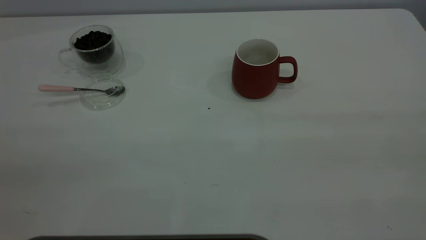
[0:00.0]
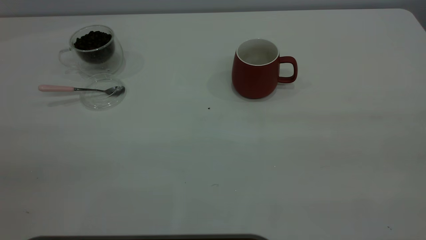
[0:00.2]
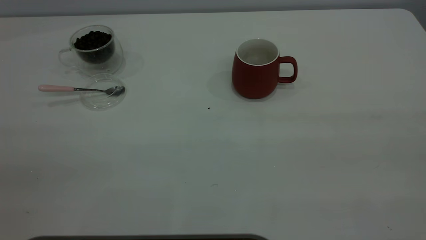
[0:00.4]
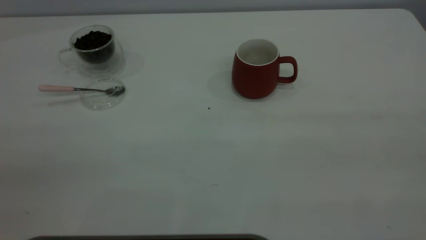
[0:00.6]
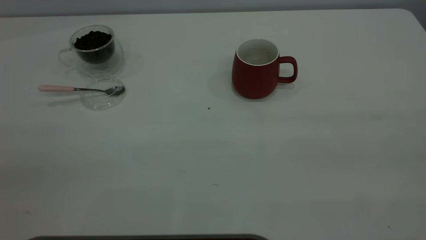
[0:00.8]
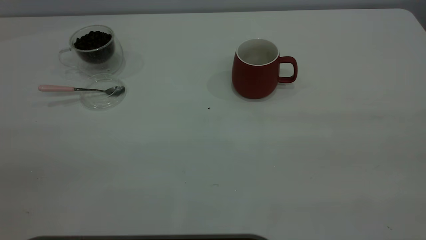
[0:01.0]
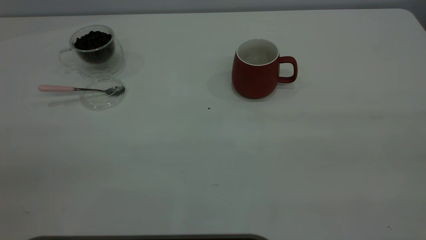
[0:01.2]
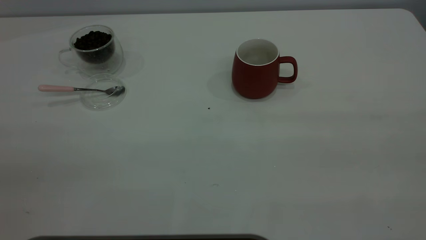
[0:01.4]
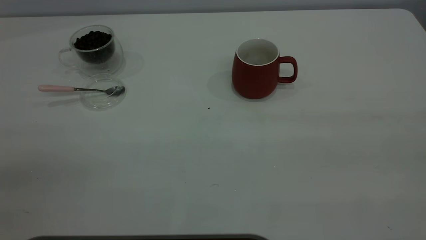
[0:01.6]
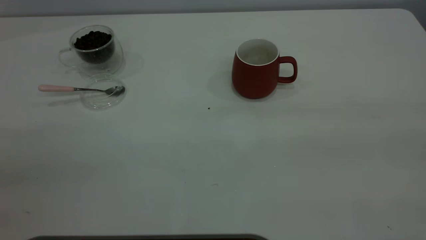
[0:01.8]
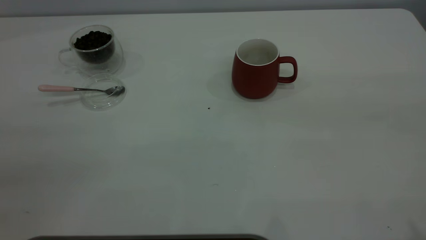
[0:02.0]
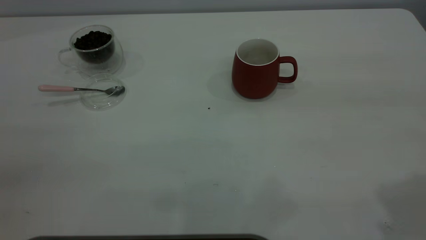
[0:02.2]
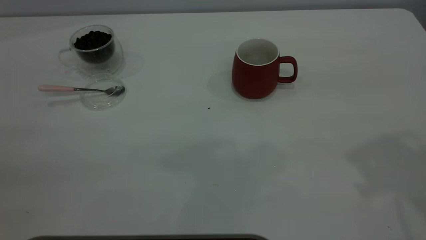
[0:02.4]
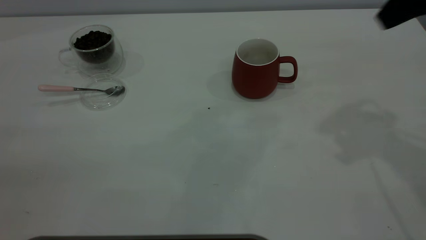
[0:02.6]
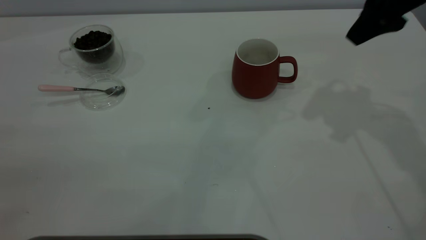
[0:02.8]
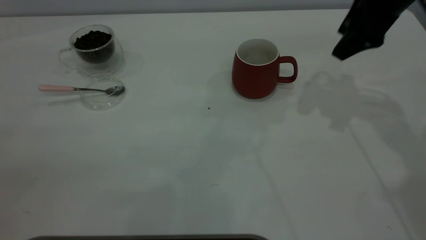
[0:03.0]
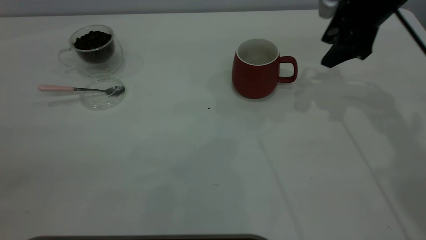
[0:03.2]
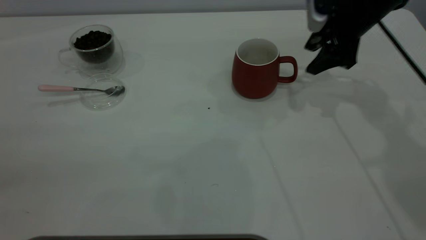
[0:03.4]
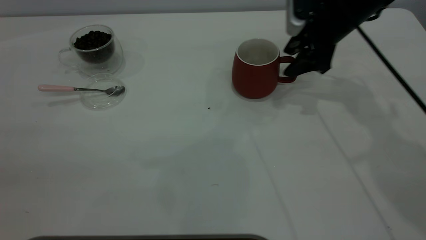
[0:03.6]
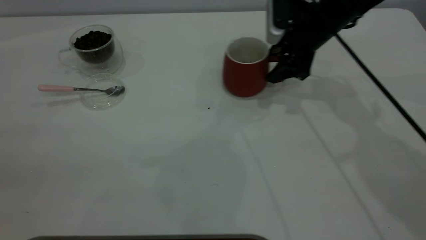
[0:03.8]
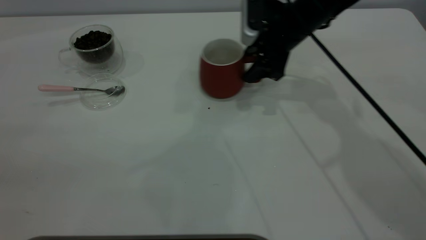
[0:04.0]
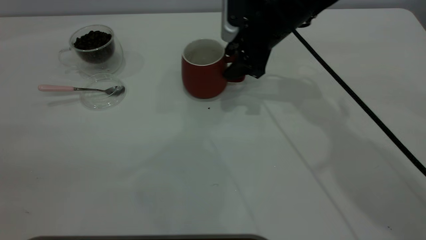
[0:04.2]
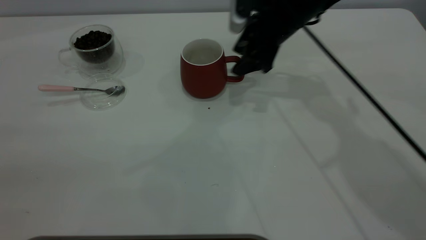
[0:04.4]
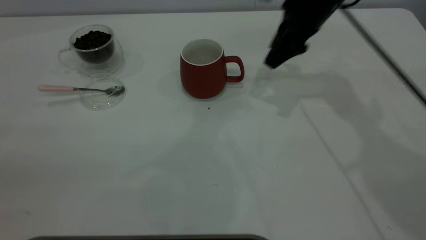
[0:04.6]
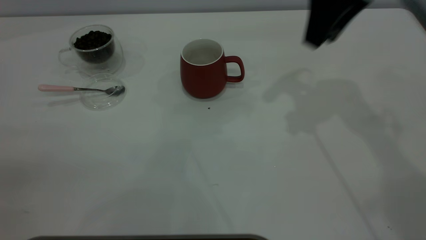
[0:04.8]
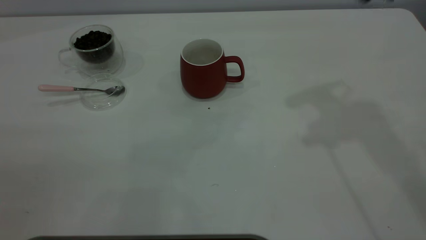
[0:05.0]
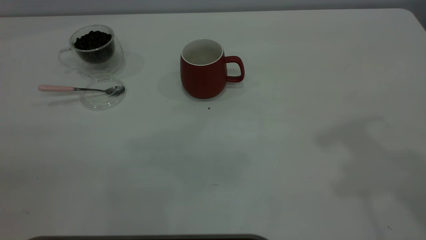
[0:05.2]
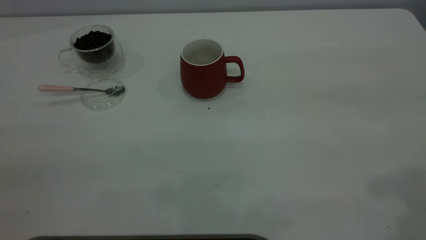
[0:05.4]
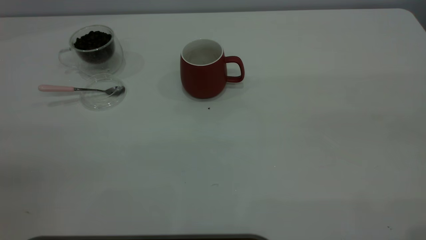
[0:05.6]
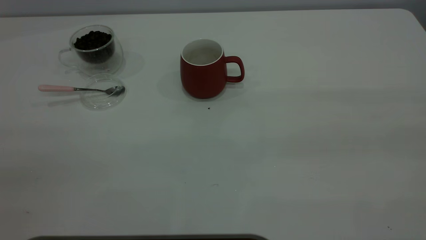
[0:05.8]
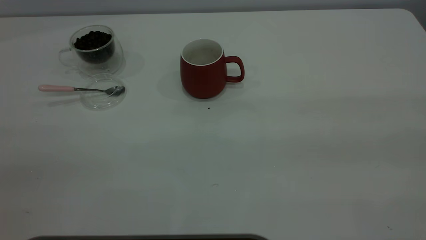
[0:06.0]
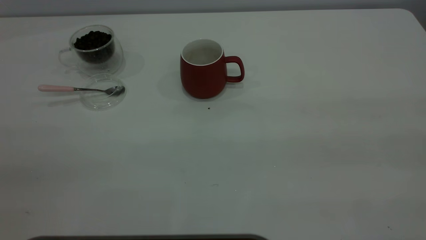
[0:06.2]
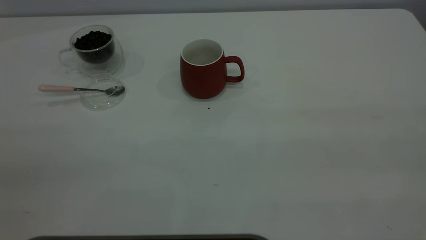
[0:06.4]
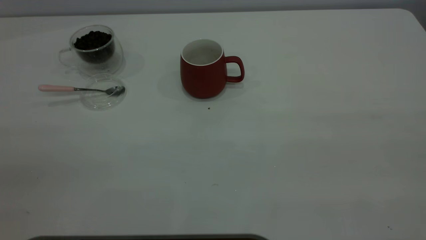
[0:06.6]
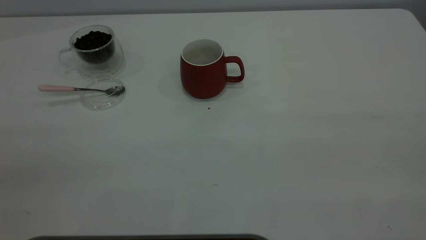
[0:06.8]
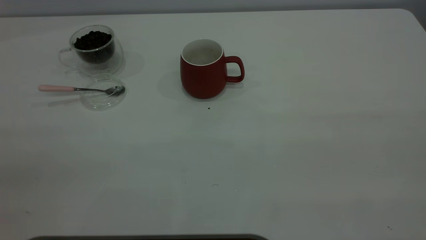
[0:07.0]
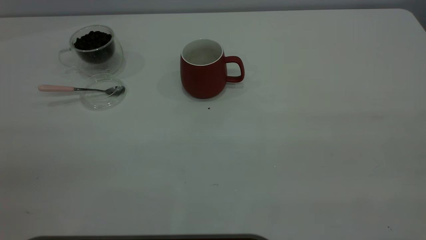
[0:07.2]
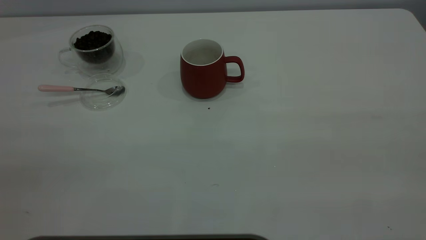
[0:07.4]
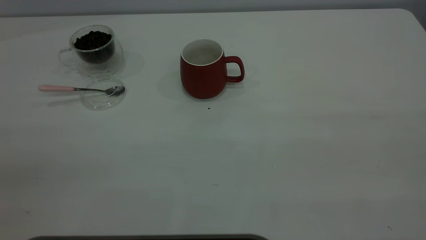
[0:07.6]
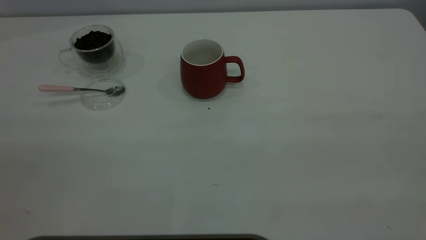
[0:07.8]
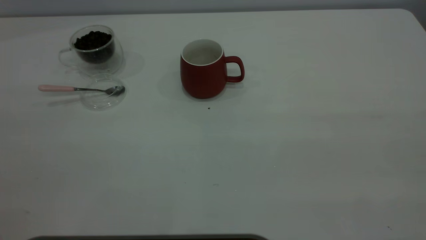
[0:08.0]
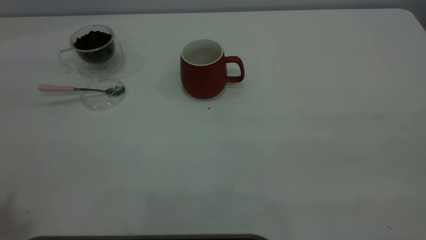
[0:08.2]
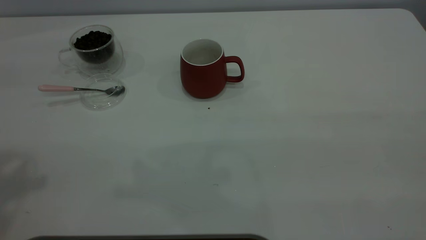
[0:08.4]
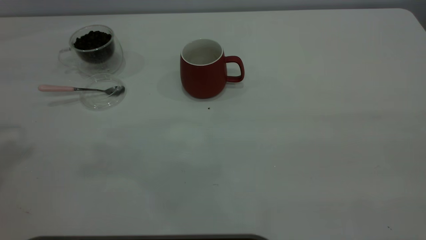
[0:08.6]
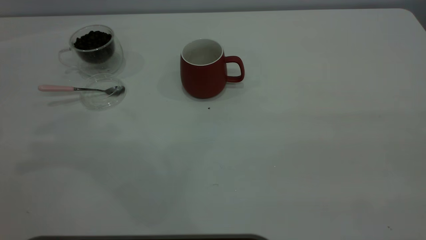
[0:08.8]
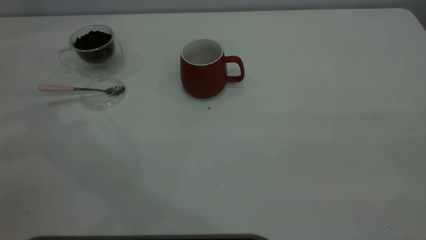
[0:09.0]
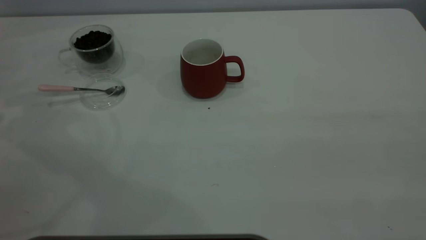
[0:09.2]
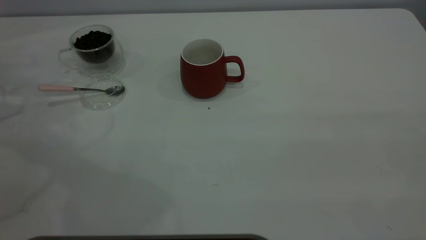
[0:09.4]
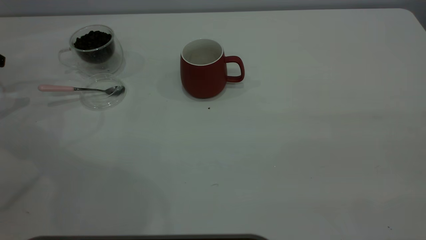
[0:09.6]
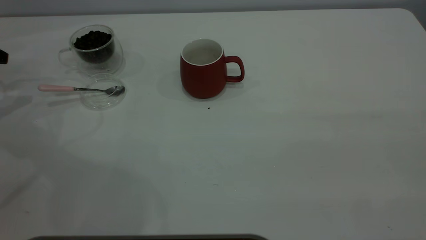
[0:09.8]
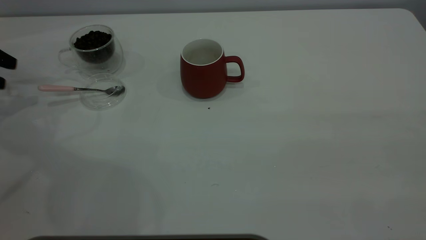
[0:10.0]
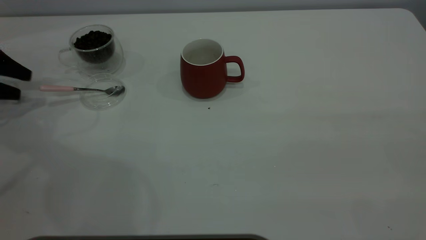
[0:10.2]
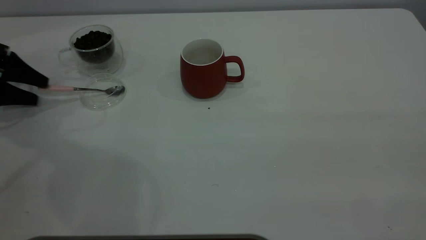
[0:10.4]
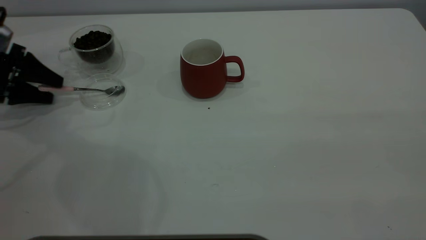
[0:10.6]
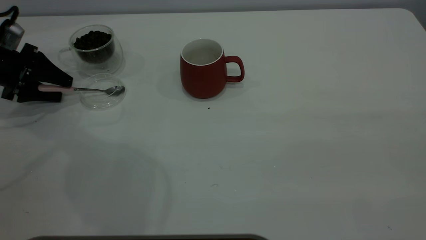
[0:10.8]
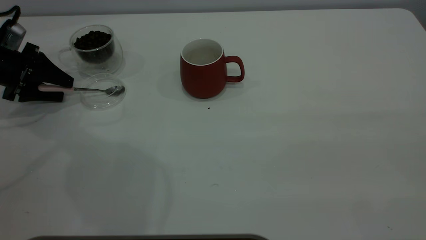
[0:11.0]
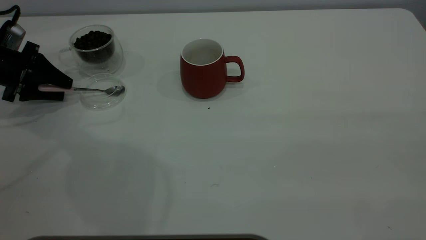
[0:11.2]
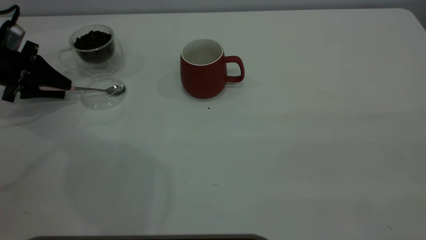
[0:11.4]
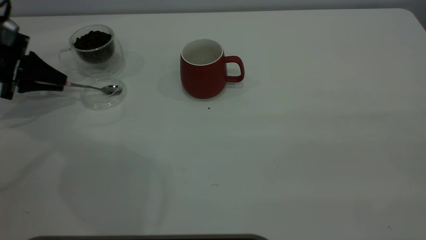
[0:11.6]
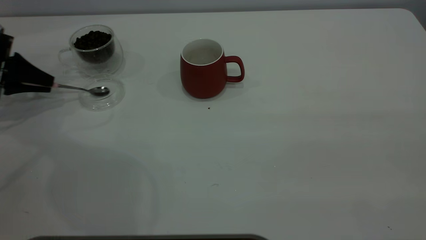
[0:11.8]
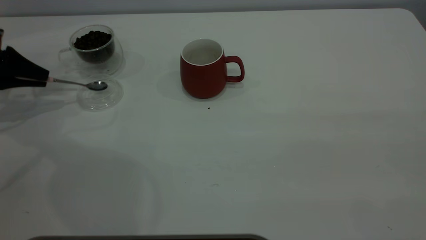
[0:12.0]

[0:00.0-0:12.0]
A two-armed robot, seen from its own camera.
Task of the whole recording: the right gripper place the red cup in the center of the table, the left gripper take the pink spoon from the cup lid and scoop out the coffee beans from the coffee cup and put them into the red cup, the left gripper put the spoon back into the cup lid.
Step, 0:00.0 to 0:04.8: Move the cup to the center of view.
0:00.0 to 0:01.6: Neither gripper changes place.
0:01.6 to 0:03.0: The right gripper is displaced forward and downward by approximately 40 cm.
0:03.0 to 0:04.4: The right gripper heads to the left, downward and forward, covering approximately 15 cm.
0:04.4 to 0:06.0: The right gripper goes roughly 50 cm backward and upward, and closes, then opens again.
0:09.0 to 0:10.4: The left gripper heads downward and forward, covering approximately 15 cm, and opens up.
0:10.4 to 0:12.0: The left gripper closes its fingers.

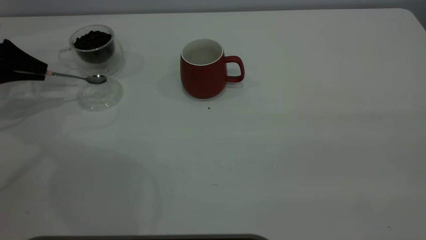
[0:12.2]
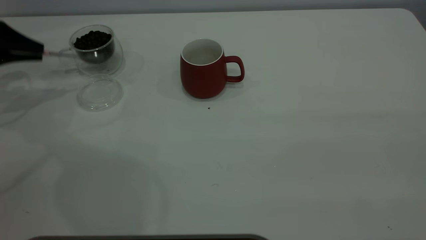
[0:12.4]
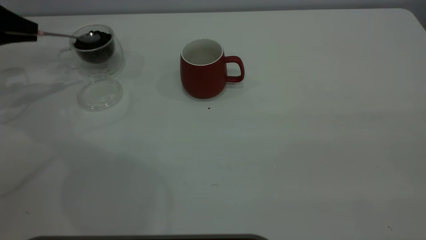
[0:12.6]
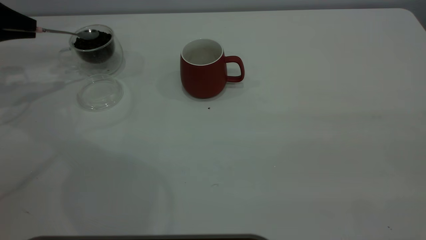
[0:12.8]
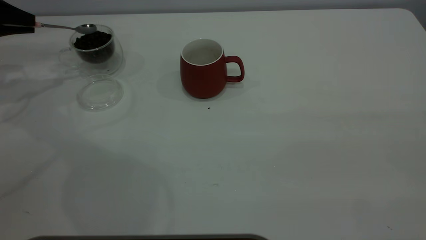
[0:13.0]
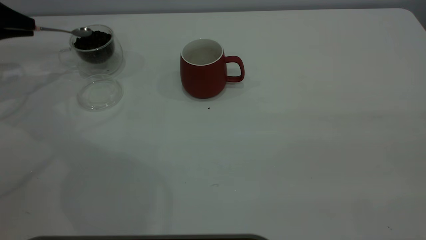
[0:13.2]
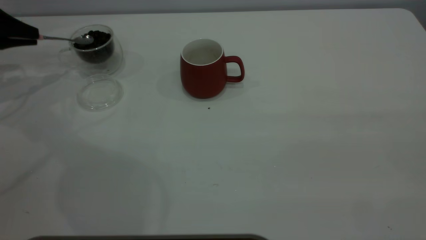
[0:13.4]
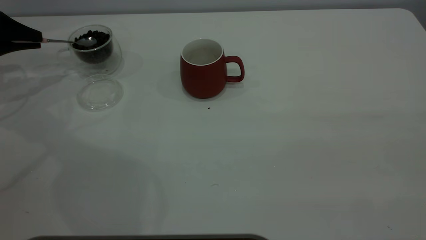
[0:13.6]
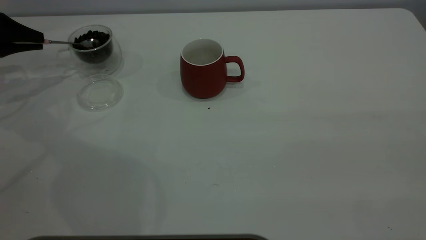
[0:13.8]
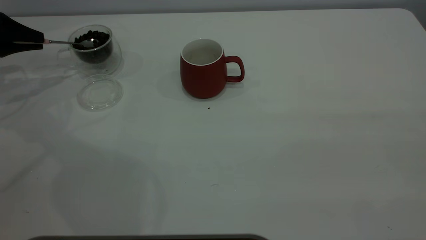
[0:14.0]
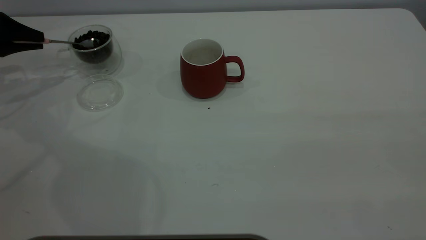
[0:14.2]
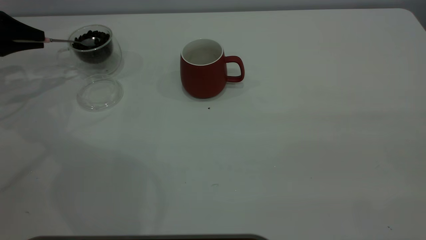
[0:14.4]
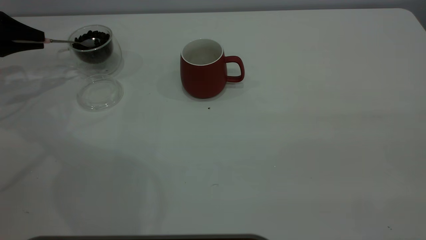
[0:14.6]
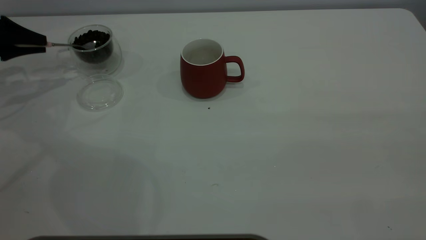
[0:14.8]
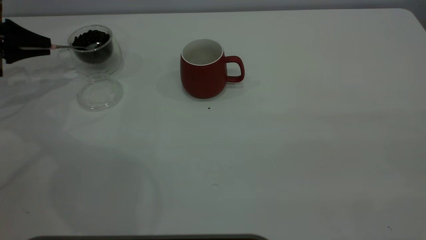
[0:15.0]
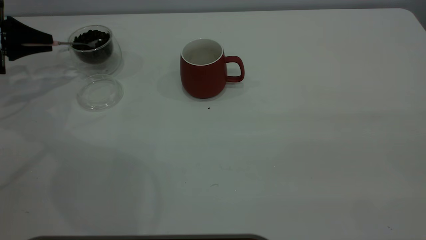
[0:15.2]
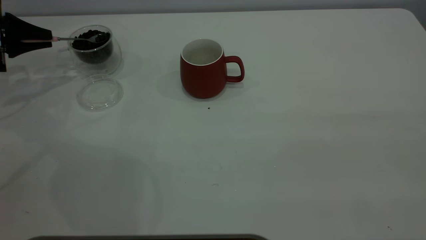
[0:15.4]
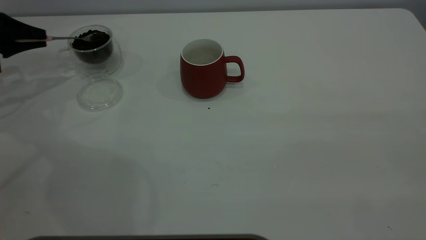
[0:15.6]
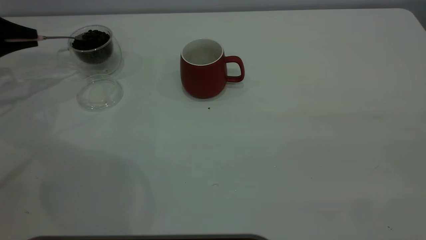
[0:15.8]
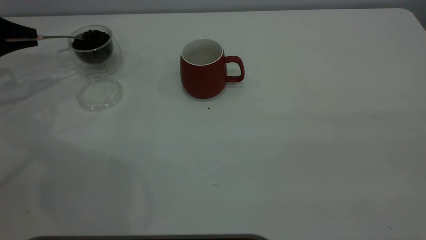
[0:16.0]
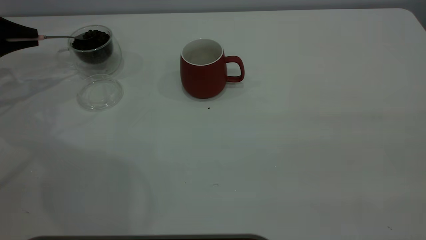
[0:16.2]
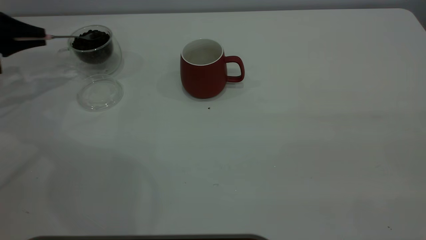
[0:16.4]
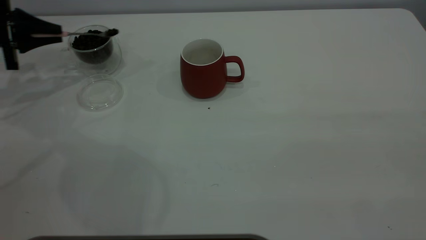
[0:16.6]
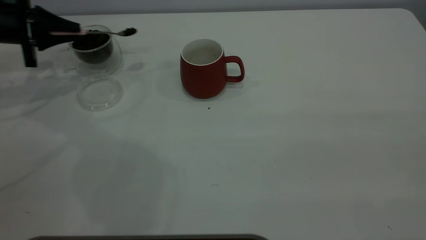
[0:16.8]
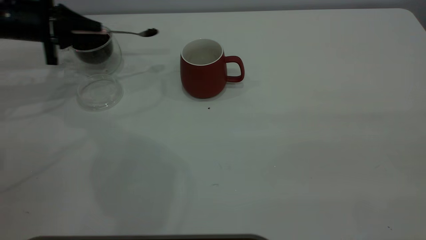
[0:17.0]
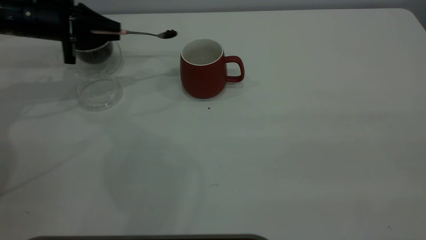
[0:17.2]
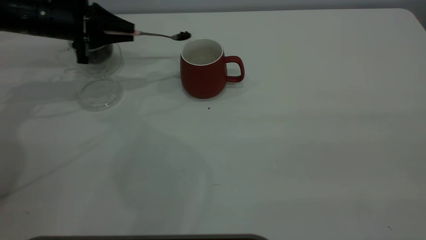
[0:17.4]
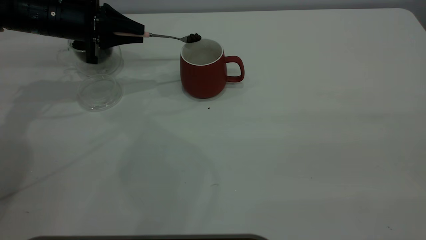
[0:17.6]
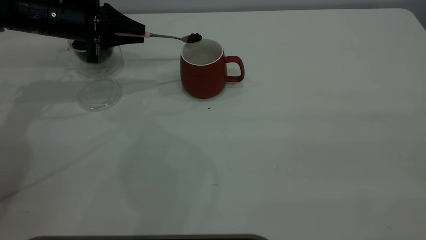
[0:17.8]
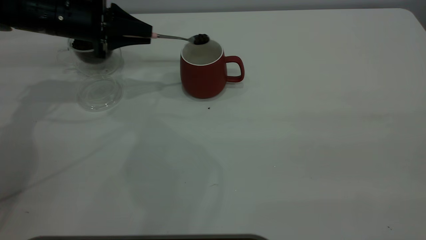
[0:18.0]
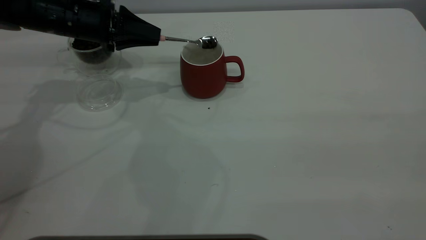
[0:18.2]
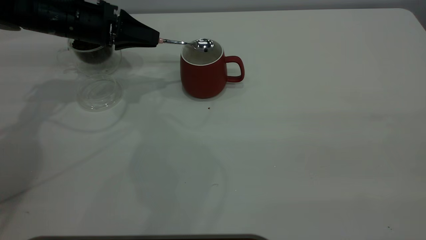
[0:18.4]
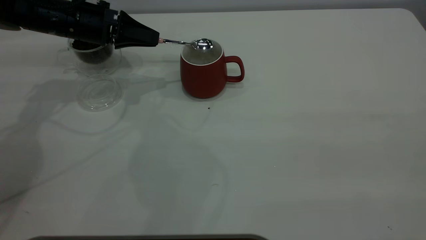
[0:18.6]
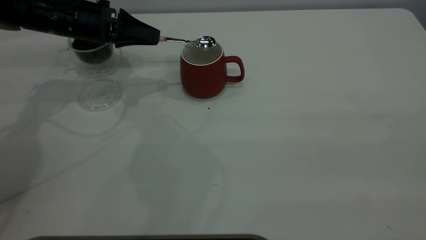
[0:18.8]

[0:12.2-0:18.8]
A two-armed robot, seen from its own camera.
Task of the whole recording: the right gripper place the red cup in the center of the table, the left gripper take the pink spoon from the cup lid and scoop out the coffee beans from the coffee cup and put them into the red cup, the left gripper put the spoon back into the cup lid.
0:12.2 to 0:13.8: The grippers stay close to where they were, moving slightly.
0:15.4 to 0:17.2: The left gripper is displaced to the right by about 15 cm.
0:17.2 to 0:18.8: The left gripper is displaced to the right by about 5 cm.
